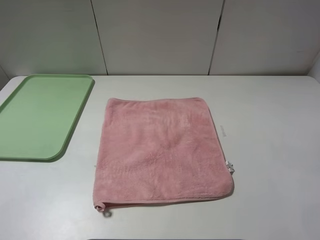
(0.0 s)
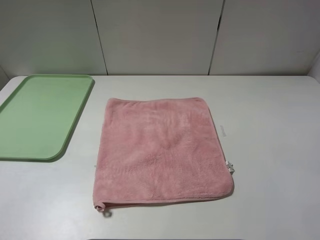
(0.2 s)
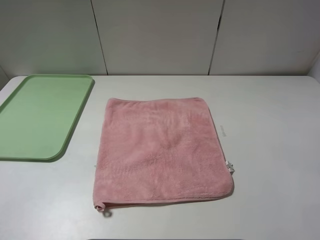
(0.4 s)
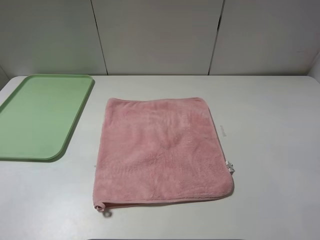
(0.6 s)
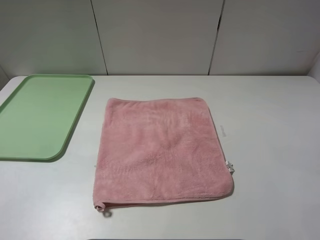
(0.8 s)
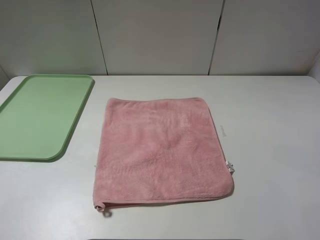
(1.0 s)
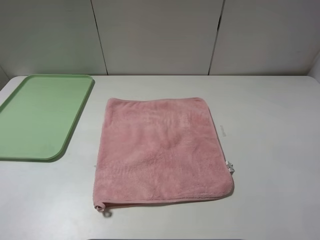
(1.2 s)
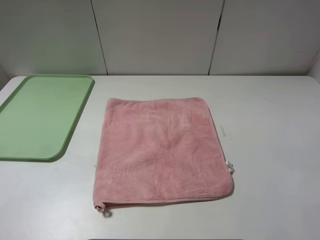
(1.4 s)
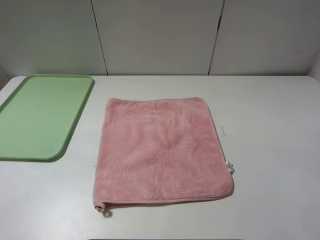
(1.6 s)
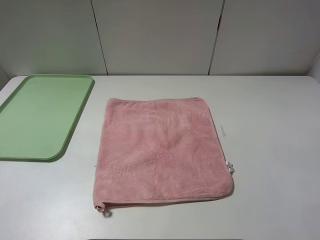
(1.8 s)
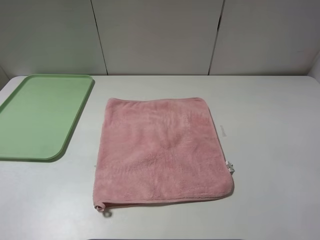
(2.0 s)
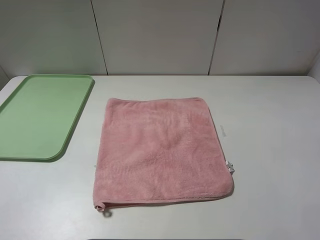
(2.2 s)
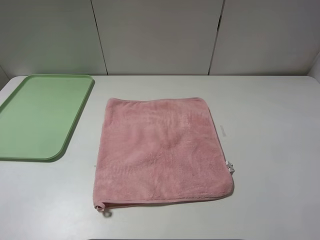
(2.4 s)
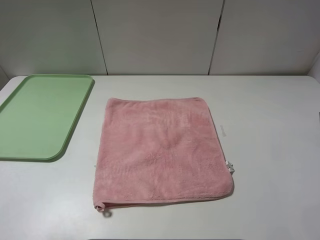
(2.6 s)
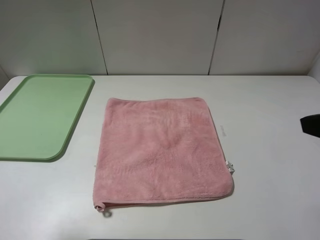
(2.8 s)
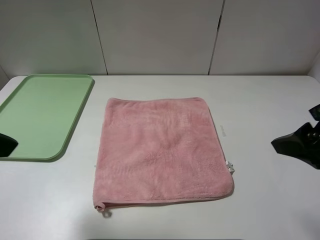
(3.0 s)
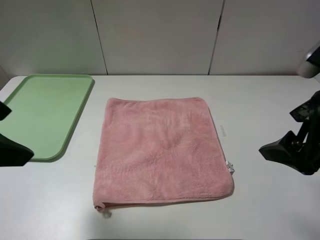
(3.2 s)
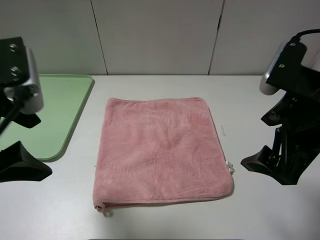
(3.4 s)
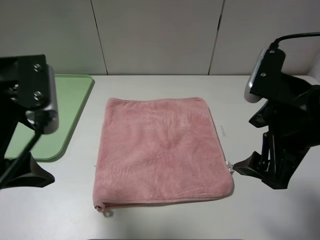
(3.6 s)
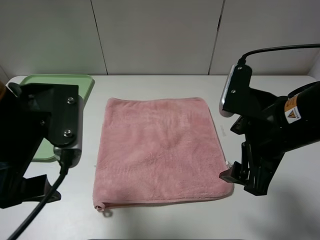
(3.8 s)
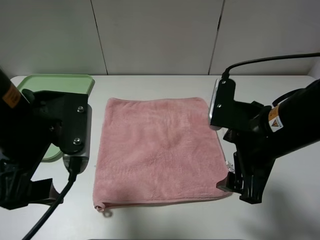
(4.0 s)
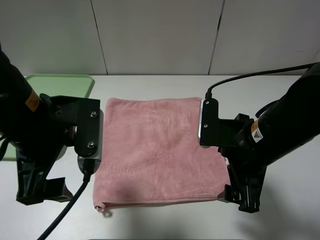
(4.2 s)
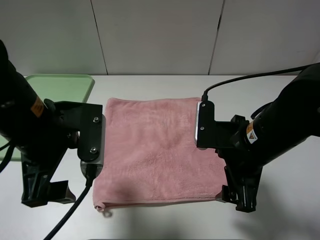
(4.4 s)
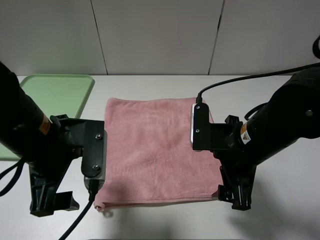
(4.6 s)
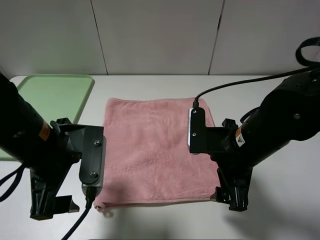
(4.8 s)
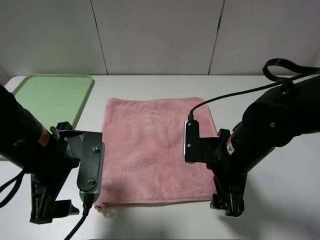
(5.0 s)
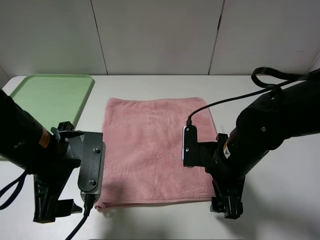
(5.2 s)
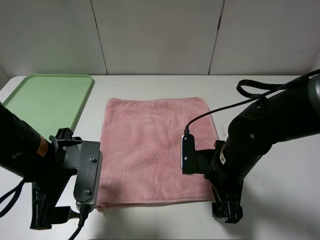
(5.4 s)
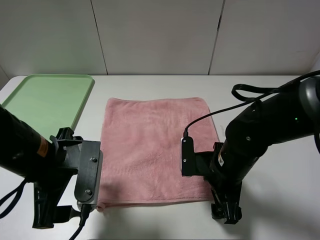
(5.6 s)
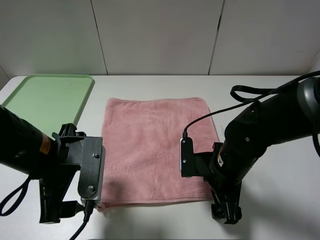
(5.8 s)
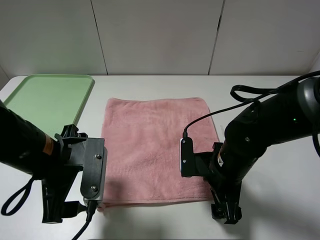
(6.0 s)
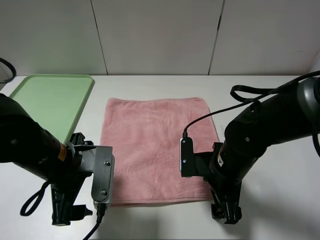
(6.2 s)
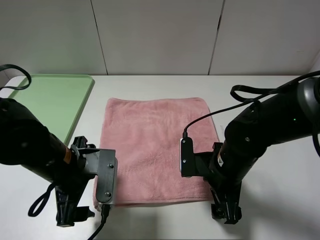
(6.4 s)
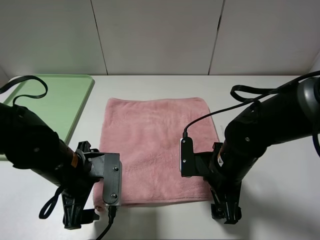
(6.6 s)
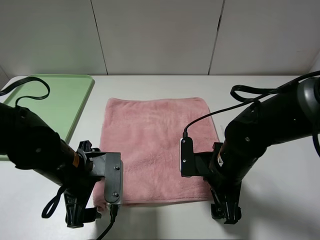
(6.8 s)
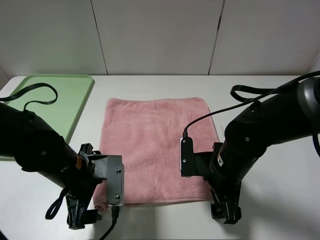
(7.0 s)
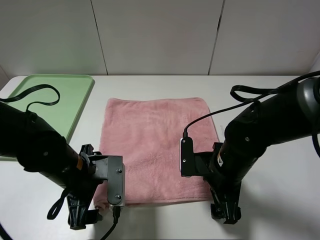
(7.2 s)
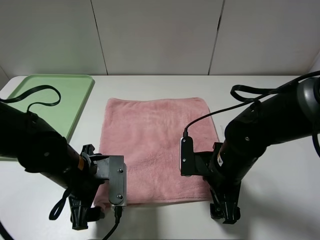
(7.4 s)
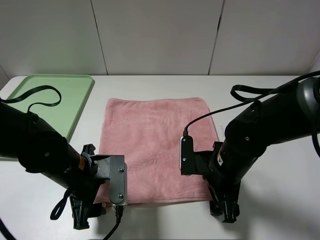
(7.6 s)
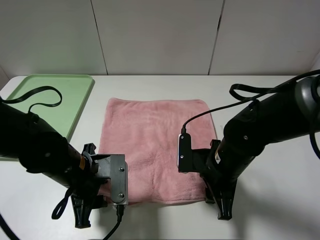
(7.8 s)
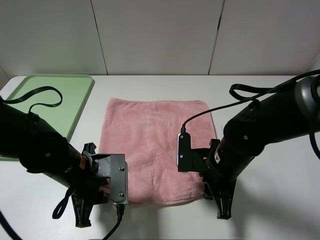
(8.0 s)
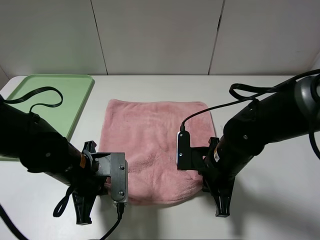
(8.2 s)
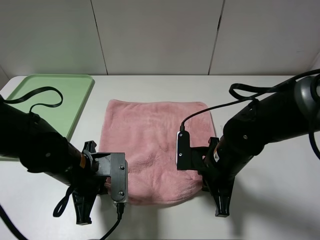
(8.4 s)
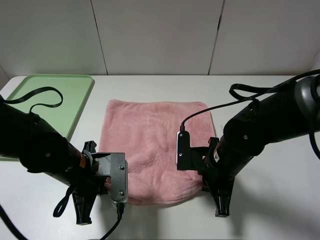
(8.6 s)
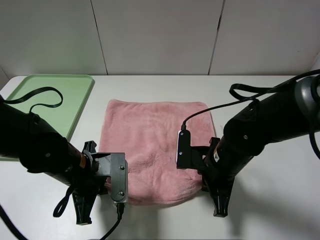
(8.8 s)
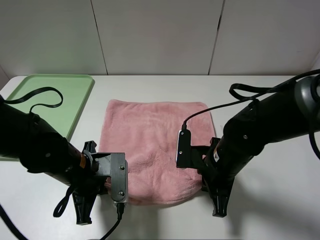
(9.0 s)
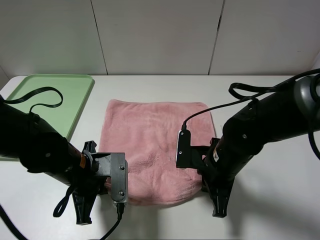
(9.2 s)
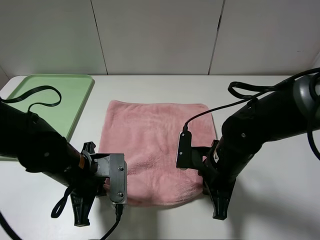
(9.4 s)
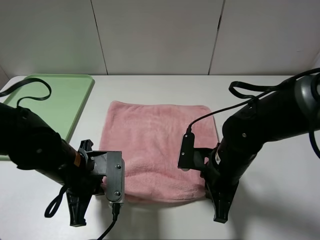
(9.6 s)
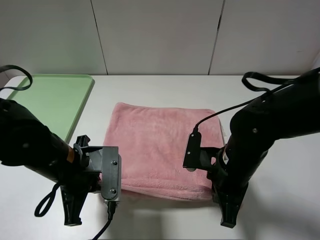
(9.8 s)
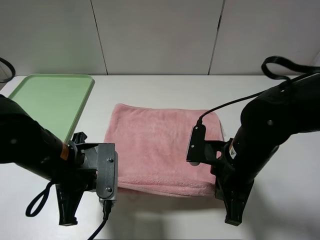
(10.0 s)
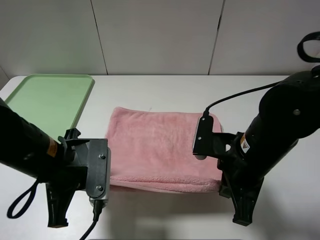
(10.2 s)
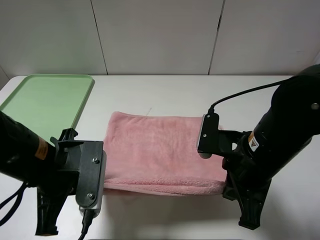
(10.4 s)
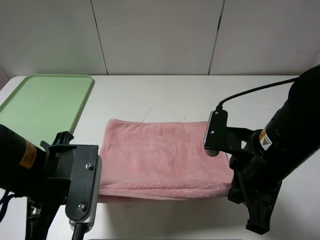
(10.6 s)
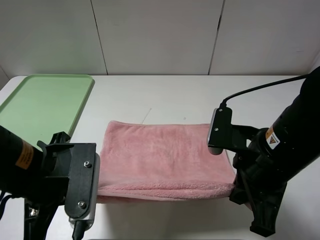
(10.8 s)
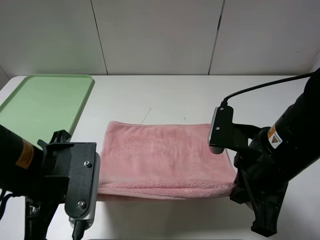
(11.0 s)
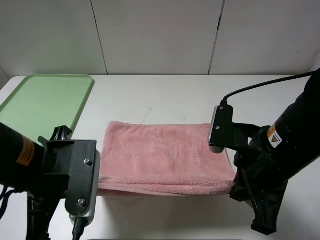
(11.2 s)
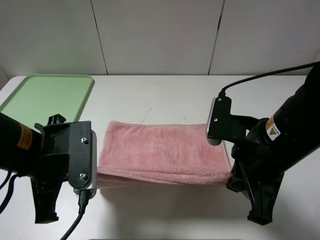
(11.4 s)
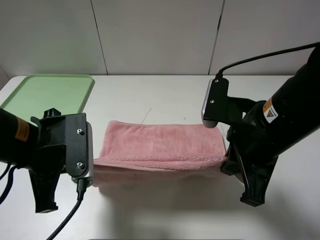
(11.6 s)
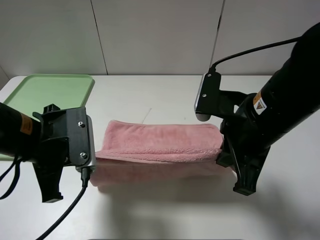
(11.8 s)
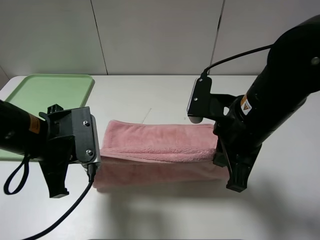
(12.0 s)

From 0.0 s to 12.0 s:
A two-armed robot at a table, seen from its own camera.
From 0.0 s to 1.6 s: Both grippers stay put.
From 1.6 s to 3.0 s: The two grippers go approximately 15 cm forward.
From 3.0 s to 4.4 s: The left gripper is displaced downward and to the right by about 15 cm; the right gripper shifts about 15 cm downward and to the left.
From 4.4 s to 6.0 s: Both grippers travel together downward, roughly 5 cm.
From 6.0 s to 7.6 s: The left gripper is displaced downward by about 5 cm.
From 7.6 s to 9.0 s: The right gripper closes up, while the left gripper closes its fingers.
From 9.0 s to 10.4 s: The grippers both shift upward by approximately 10 cm.
From 10.4 s to 12.0 s: The left gripper shifts by about 5 cm; the right gripper changes place by roughly 5 cm.

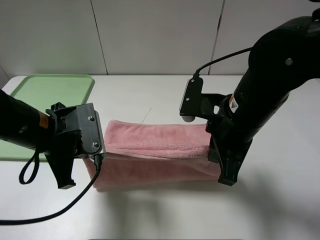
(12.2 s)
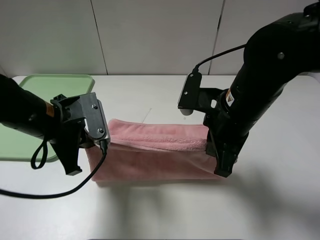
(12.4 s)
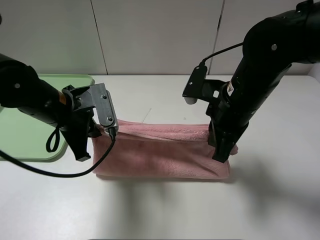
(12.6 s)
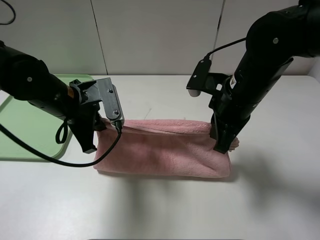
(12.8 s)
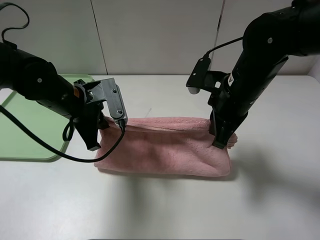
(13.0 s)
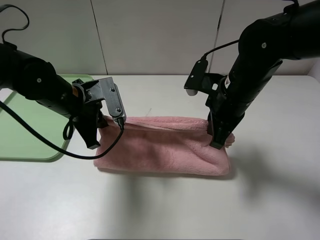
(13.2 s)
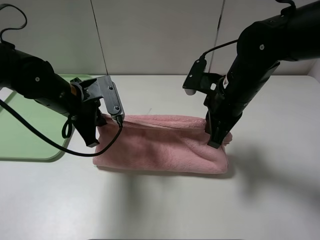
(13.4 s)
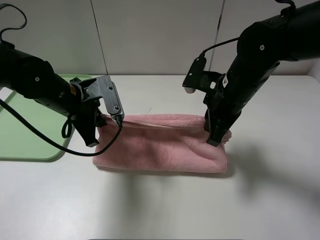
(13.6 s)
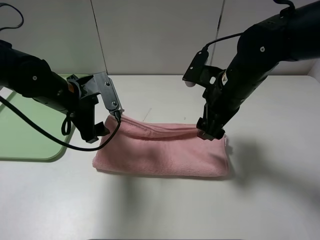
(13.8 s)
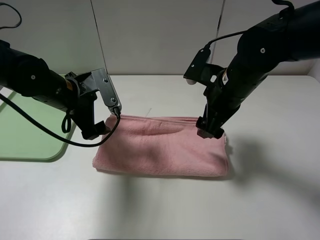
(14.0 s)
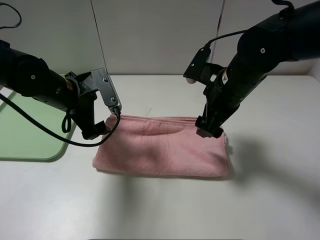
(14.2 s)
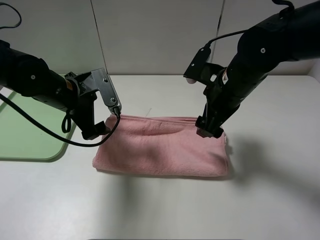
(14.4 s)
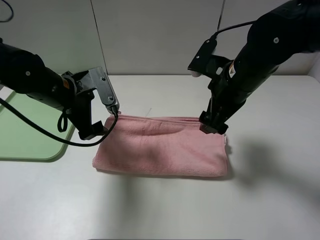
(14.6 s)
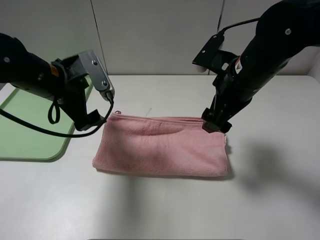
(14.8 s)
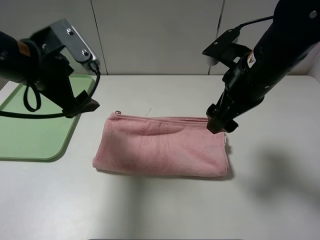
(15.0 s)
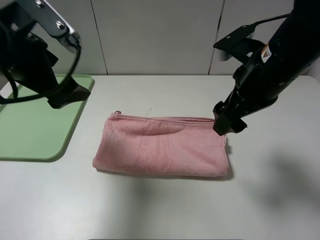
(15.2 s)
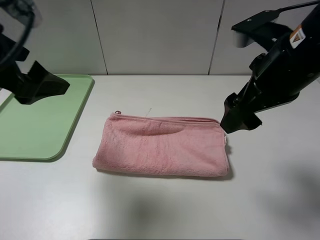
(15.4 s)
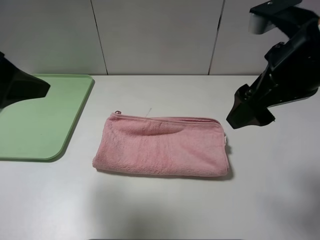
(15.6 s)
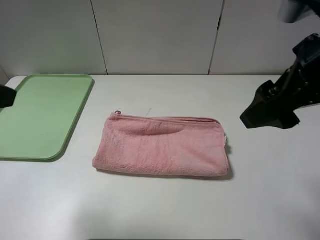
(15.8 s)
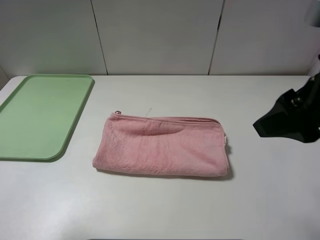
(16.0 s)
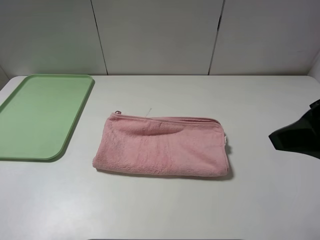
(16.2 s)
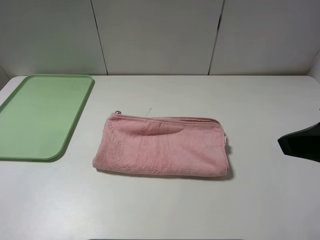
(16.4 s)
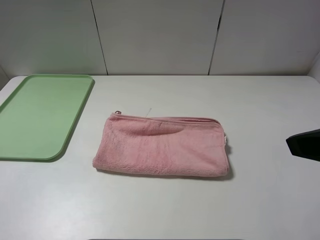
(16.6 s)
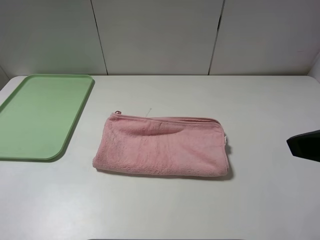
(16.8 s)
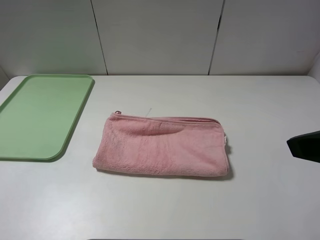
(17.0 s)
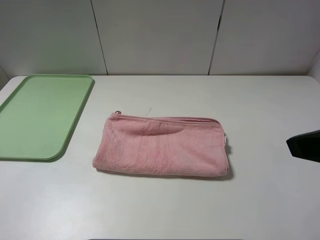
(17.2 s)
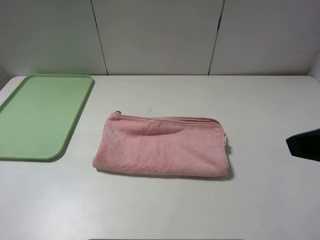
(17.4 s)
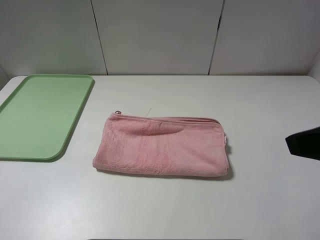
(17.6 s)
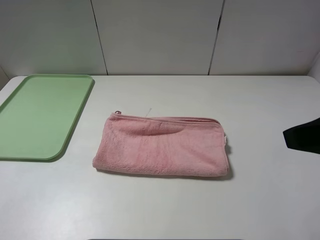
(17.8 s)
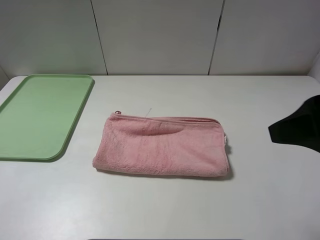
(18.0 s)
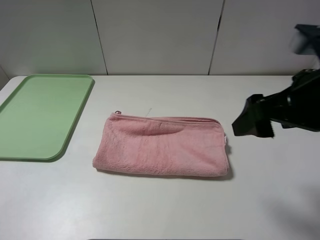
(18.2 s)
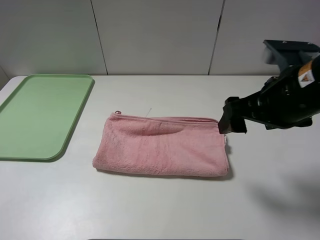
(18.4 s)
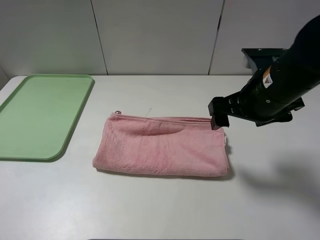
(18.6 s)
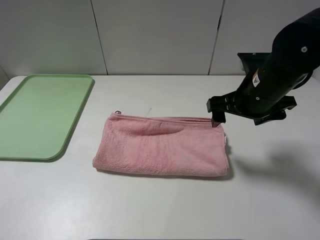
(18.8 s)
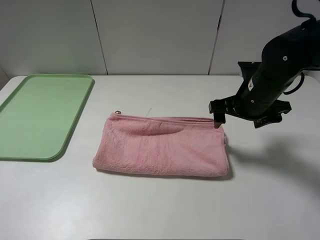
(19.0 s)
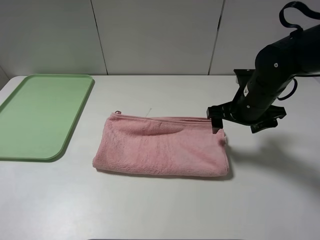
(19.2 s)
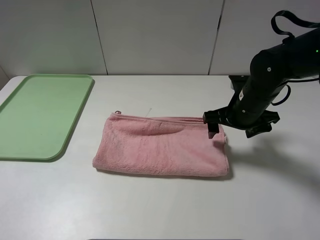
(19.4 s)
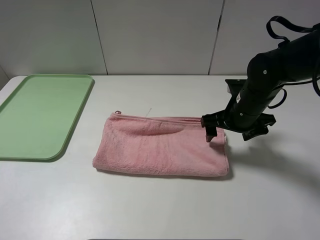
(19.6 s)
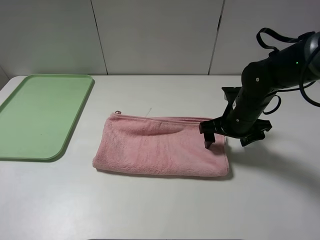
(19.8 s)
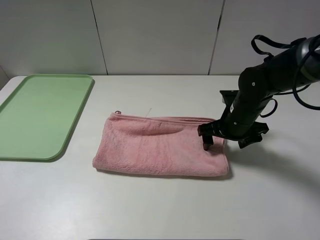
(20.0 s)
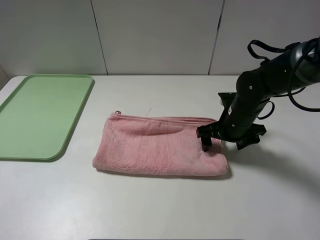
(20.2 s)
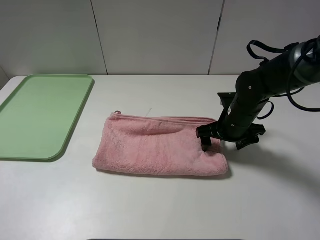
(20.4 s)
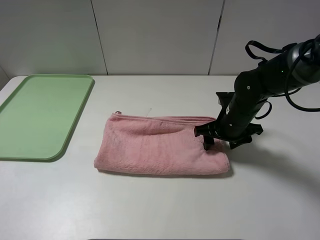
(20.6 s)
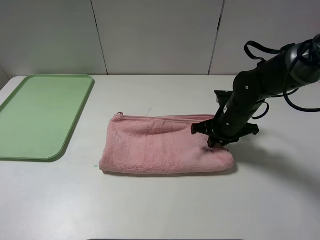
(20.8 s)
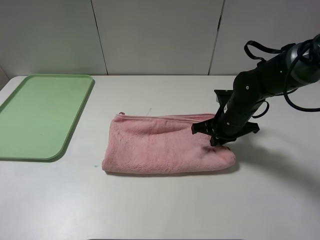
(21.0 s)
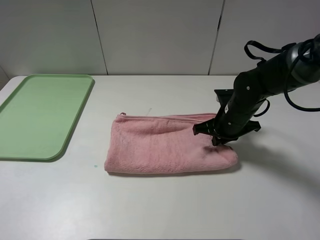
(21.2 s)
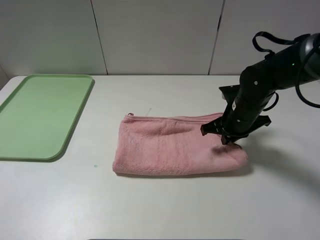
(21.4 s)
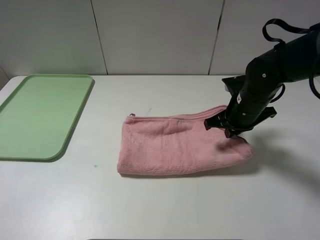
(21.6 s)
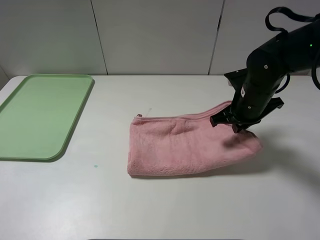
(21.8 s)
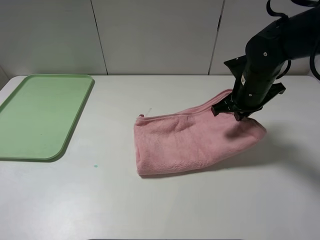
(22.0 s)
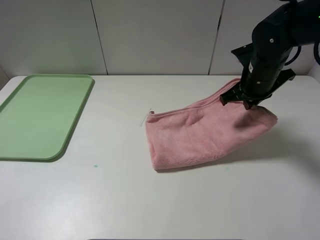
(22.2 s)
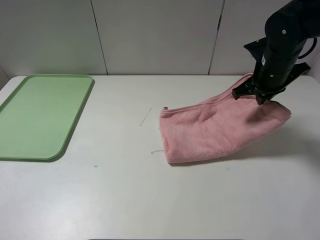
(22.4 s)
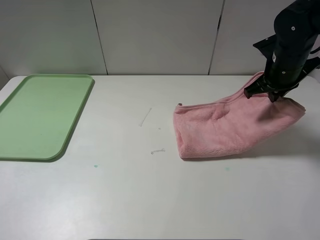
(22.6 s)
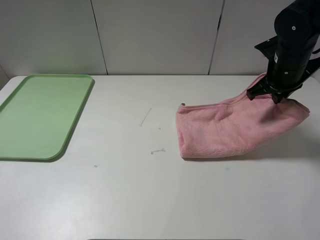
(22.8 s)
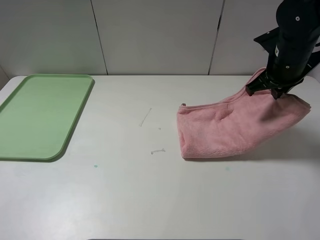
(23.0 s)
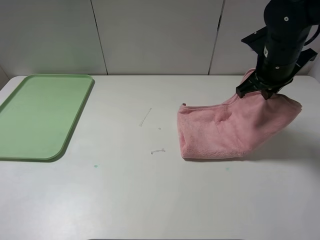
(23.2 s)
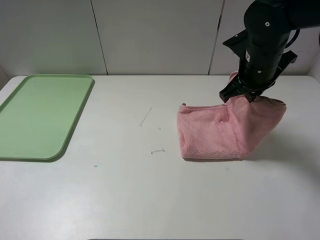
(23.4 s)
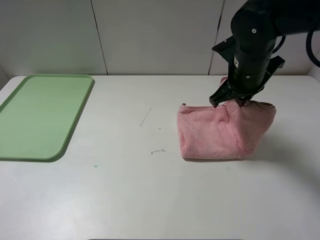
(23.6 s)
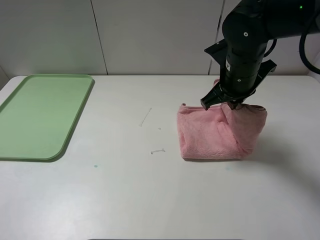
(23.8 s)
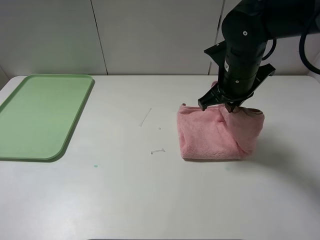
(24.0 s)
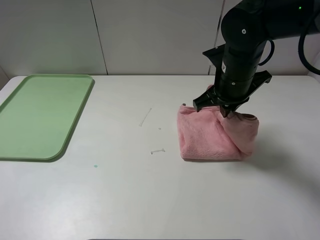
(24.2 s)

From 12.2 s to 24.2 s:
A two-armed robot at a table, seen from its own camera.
Step, from 12.2 s to 14.2 s: Fold the pink towel upwards.
From 12.2 s to 13.8 s: The two grippers go some 10 cm forward. The left gripper opens, while the right gripper opens up.
From 13.8 s to 15.2 s: The left gripper is displaced upward and backward by some 15 cm; the right gripper moves upward, some 5 cm.
From 15.2 s to 16.6 s: The left gripper travels backward and to the left by approximately 25 cm, while the right gripper heads backward, to the right and upward, covering about 15 cm.
From 16.6 s to 18.2 s: The right gripper heads forward and downward, covering some 10 cm.
From 18.2 s to 19.8 s: The right gripper heads downward and forward, covering roughly 20 cm.
From 19.8 s to 21.2 s: The right gripper closes up.
From 21.2 s to 22.6 s: The right gripper shifts some 15 cm upward and to the right.
From 22.6 s to 24.2 s: The right gripper travels to the left by roughly 10 cm.
